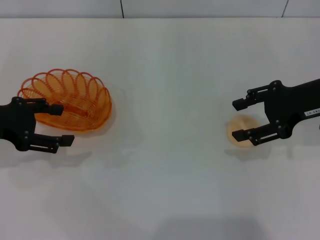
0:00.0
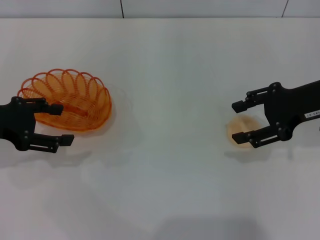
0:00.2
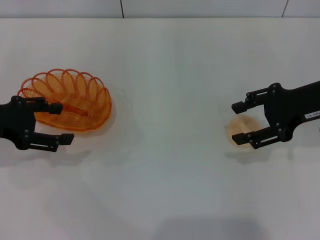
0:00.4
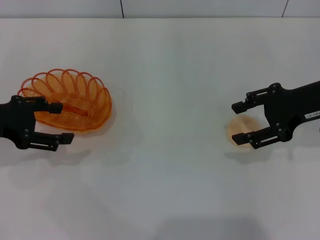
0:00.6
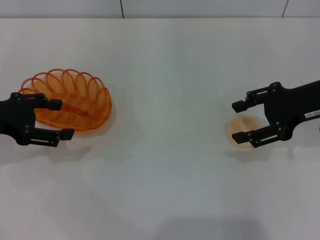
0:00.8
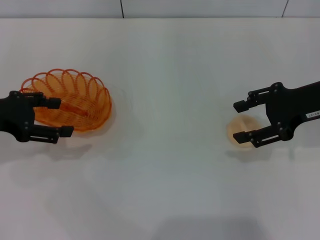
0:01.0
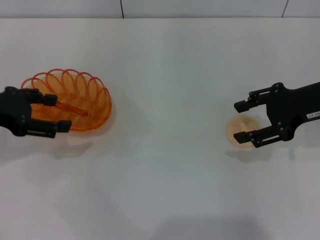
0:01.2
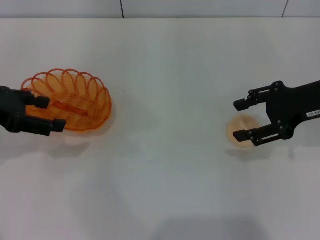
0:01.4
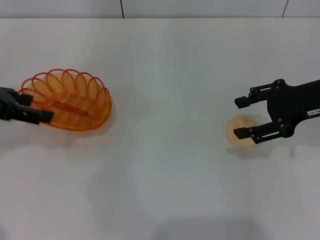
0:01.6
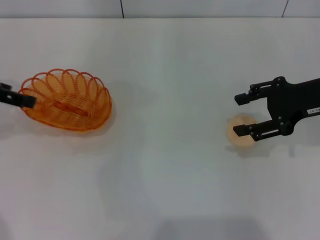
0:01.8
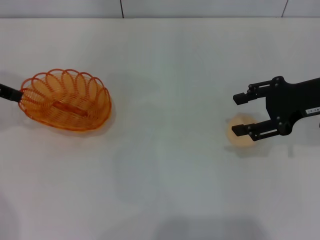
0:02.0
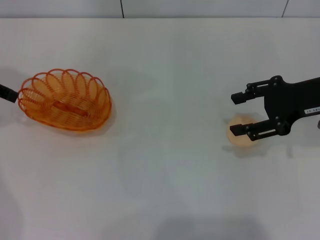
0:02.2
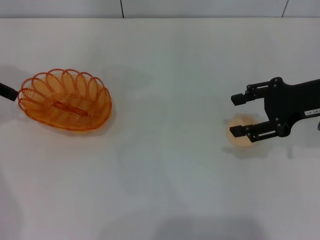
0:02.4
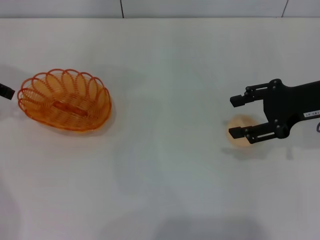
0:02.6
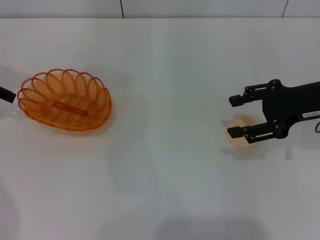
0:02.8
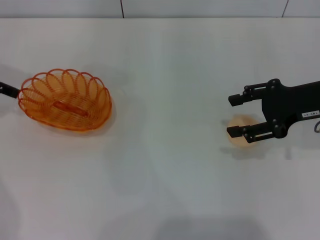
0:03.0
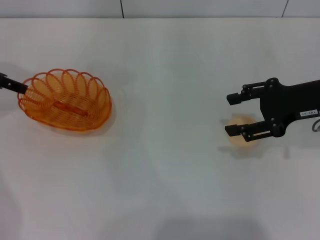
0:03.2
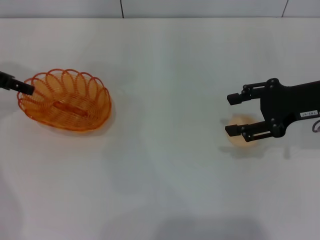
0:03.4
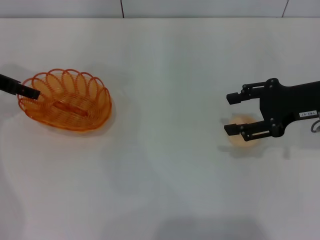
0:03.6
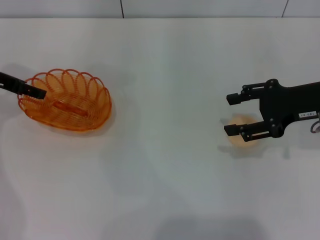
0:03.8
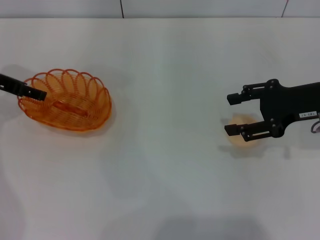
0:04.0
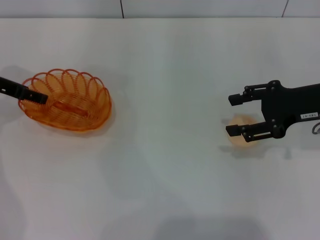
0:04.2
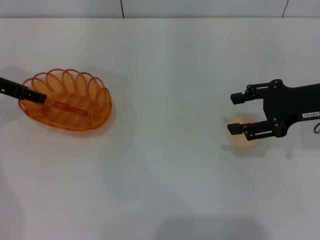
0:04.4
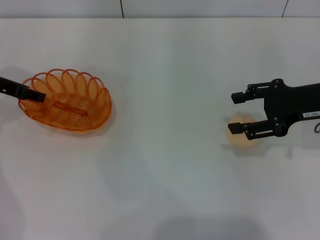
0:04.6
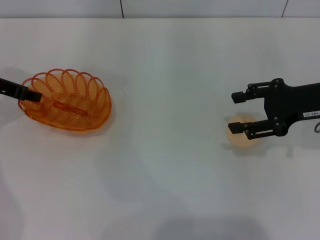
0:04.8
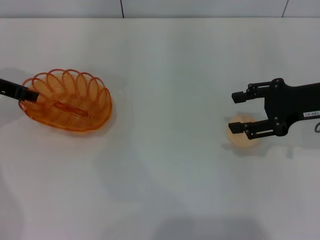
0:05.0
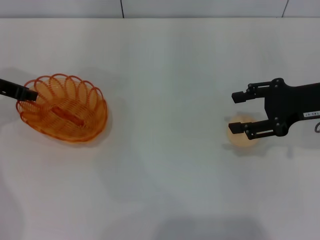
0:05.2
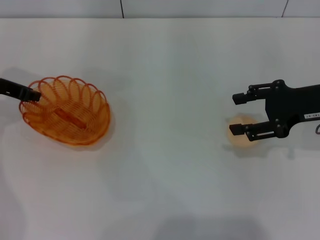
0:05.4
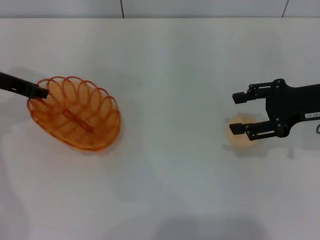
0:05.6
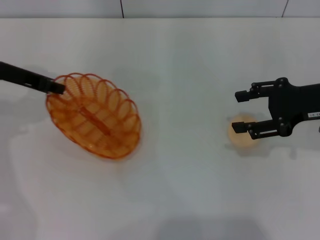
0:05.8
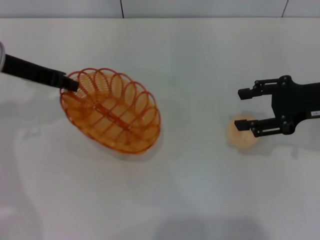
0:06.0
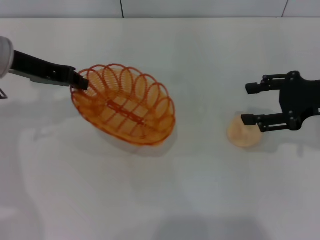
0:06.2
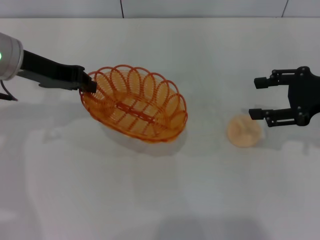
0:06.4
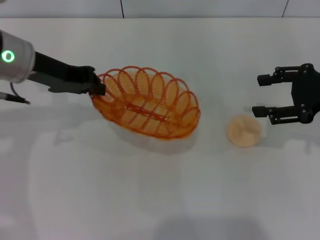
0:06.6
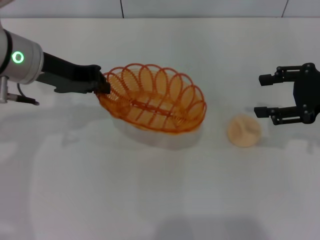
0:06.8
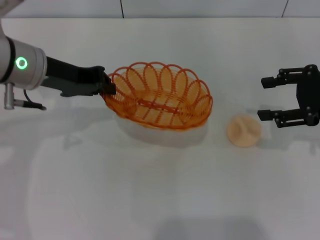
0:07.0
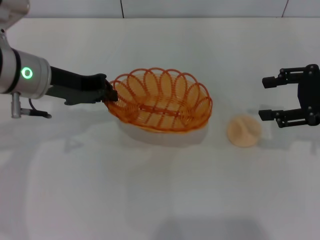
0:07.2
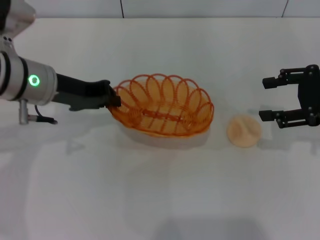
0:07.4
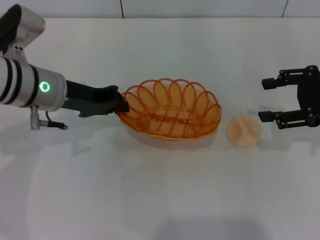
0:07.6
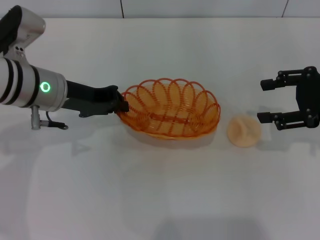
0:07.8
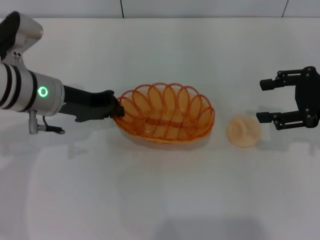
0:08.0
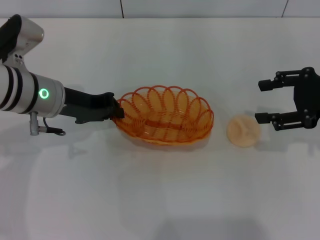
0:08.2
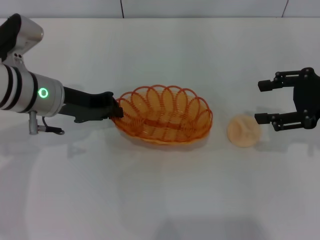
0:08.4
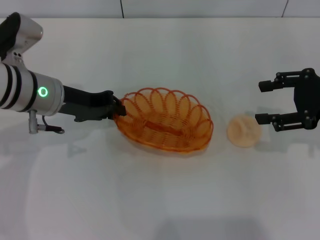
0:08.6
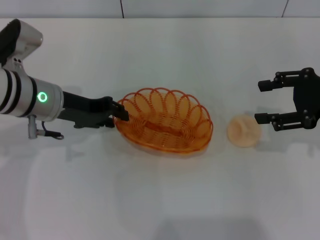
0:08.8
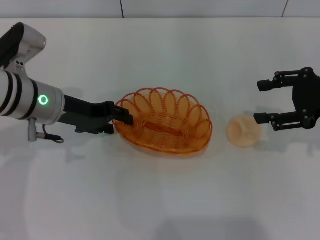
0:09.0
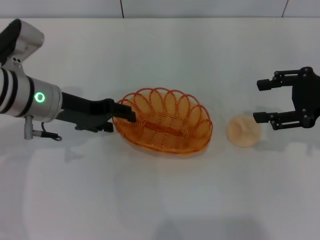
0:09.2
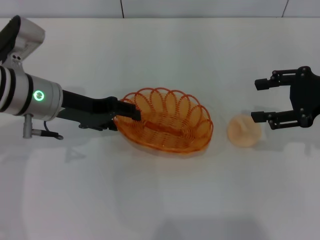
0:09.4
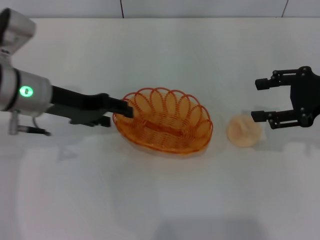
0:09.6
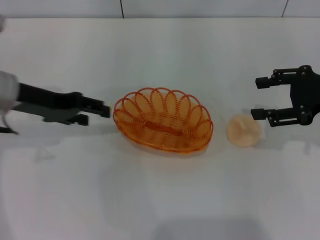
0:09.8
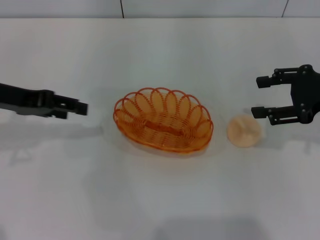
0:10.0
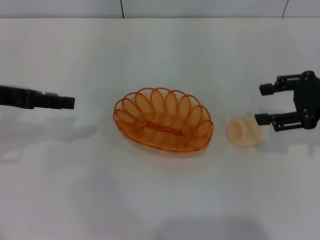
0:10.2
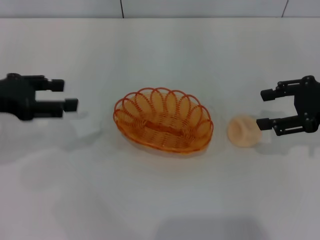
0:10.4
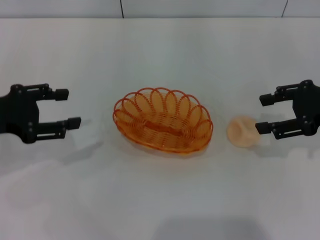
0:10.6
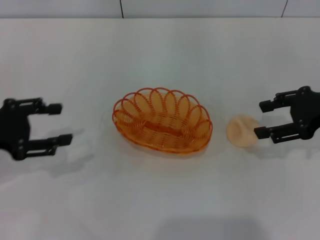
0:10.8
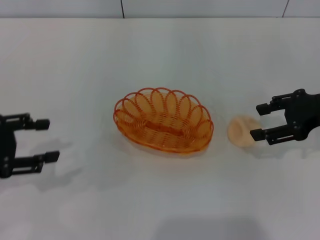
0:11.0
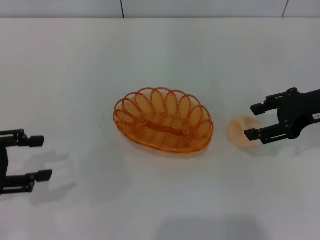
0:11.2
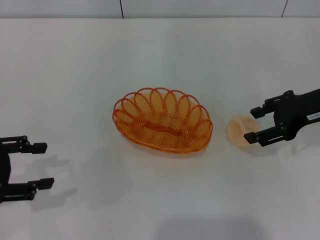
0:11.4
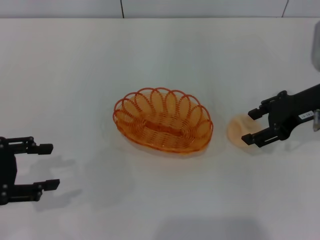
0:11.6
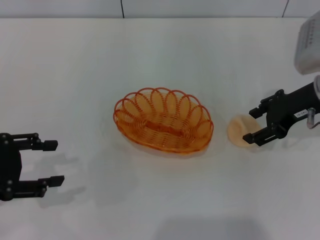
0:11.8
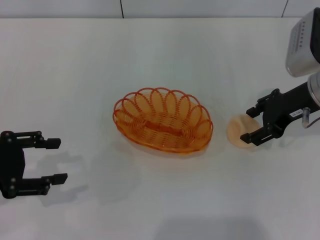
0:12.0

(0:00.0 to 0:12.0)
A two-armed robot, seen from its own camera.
Step, 0:00.0 - 0:06.4: Pick up the basket with the left gripper.
Step, 0:06.6 - 0:09.8: Place the basket in the center of view with the left gripper.
0:00.0 - 0:01.6: The left gripper is displaced upward by some 5 cm.
0:01.6 - 0:03.0: The left gripper moves forward, approximately 5 cm.
0:03.0 - 0:04.4: There are only small adjustments of the grippers.
0:04.4 - 0:06.0: The left gripper is displaced to the right by roughly 5 cm, and closes.
0:06.0 - 0:07.6: The left gripper travels to the right by some 5 cm.
0:07.6 - 0:09.0: The left gripper opens up.
0:09.0 - 0:10.4: The left gripper travels to the left and upward by some 10 cm.
0:10.4 - 0:12.0: The left gripper heads backward, covering some 5 cm; the right gripper heads to the left, covering some 5 cm.

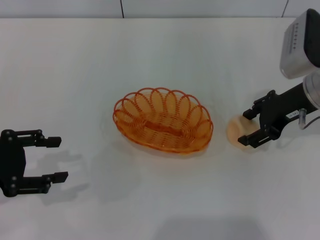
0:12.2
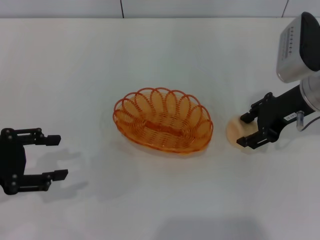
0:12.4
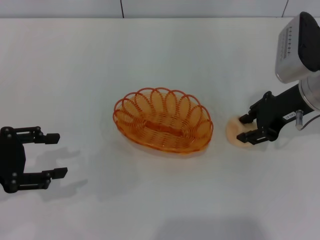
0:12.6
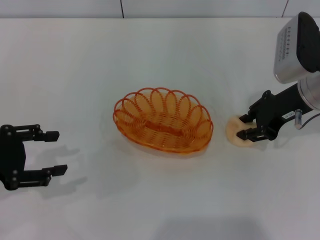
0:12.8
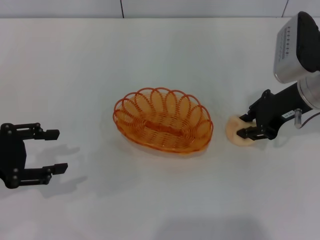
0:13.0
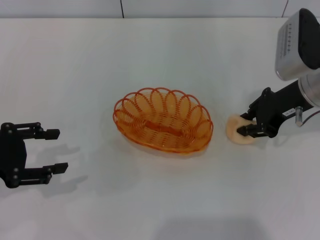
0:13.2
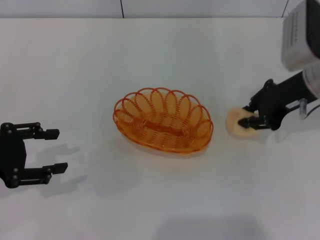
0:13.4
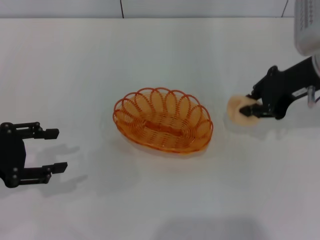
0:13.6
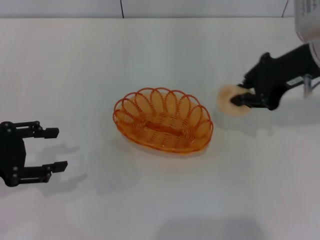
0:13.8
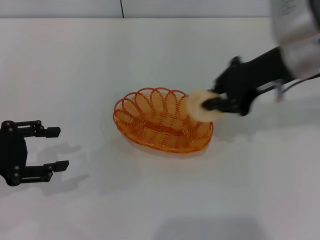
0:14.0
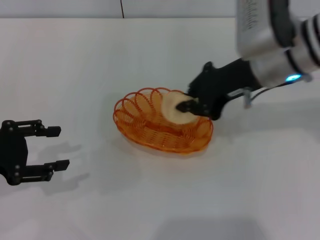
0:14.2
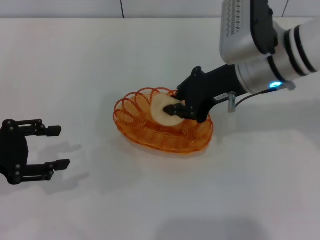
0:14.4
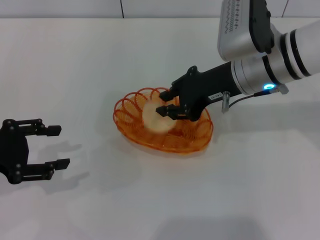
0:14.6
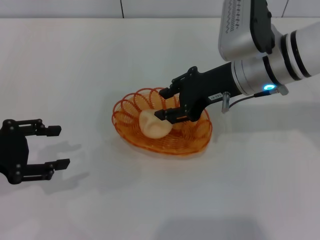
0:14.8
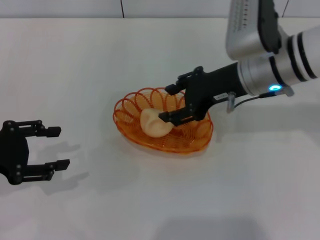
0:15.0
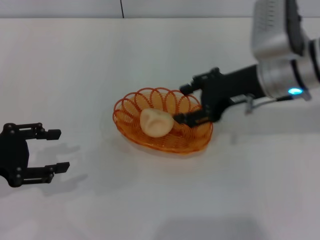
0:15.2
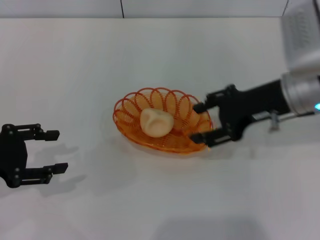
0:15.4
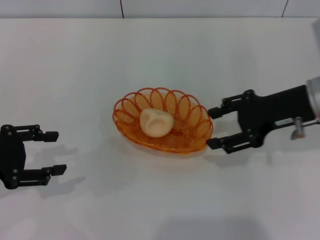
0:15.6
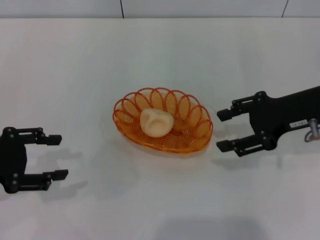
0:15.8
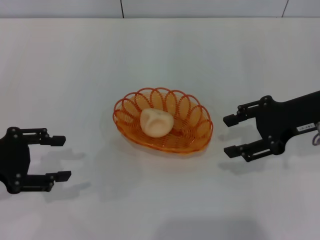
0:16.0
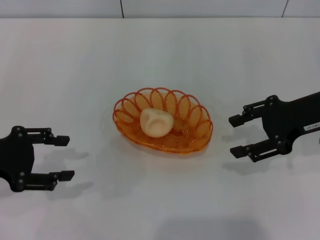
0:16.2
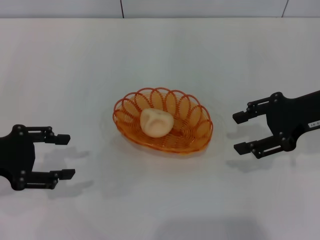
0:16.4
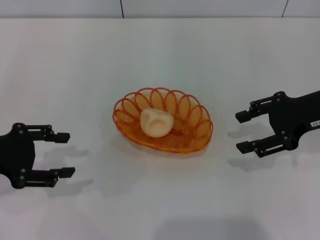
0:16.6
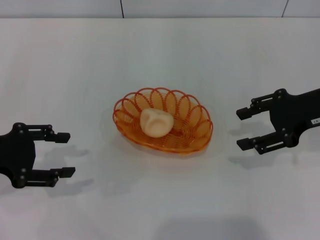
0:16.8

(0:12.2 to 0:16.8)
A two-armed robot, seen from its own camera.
Step, 0:13.8 - 0:15.6: Place the egg yolk pastry into the basket with the right gripper.
0:12.2 - 0:13.8: The right gripper heads upward, covering roughly 5 cm, and closes its fingers.
0:13.8 - 0:15.2: The right gripper heads downward, covering approximately 5 cm, and opens its fingers.
0:15.2 - 0:16.8: The right gripper travels to the right by some 10 cm.

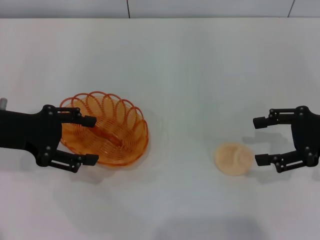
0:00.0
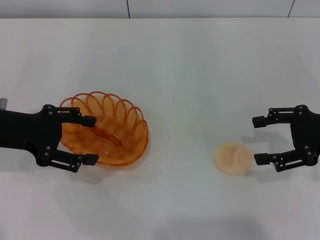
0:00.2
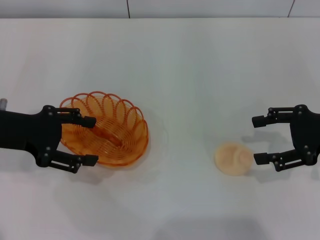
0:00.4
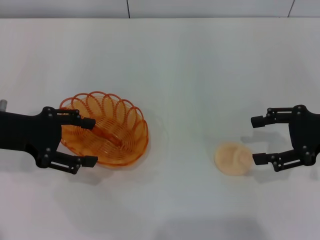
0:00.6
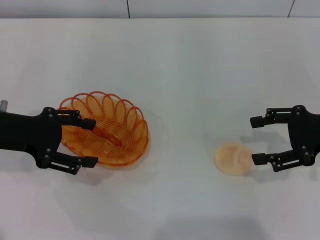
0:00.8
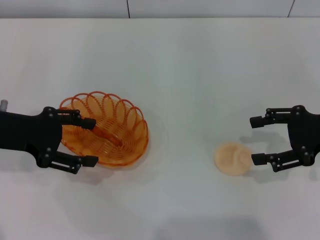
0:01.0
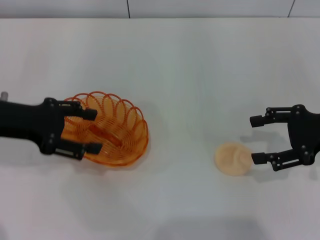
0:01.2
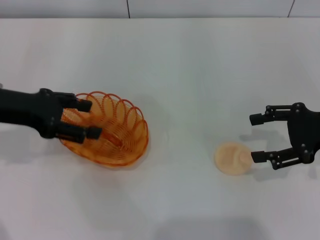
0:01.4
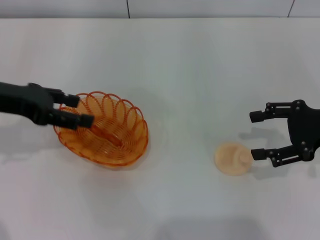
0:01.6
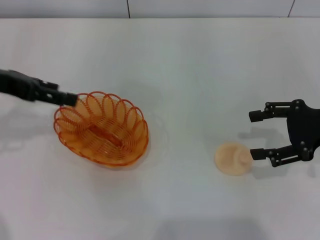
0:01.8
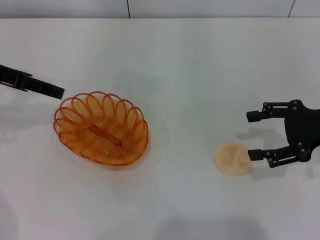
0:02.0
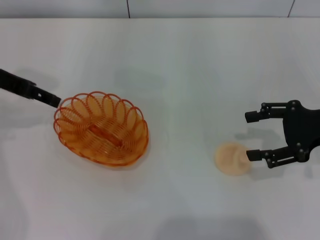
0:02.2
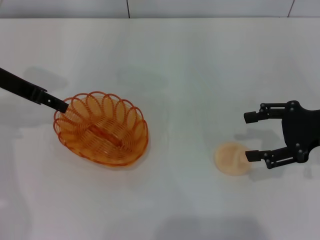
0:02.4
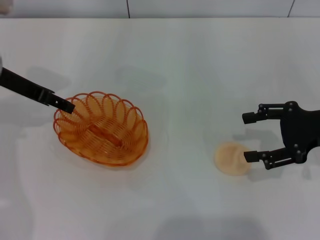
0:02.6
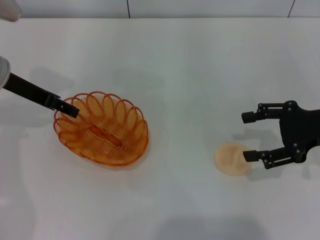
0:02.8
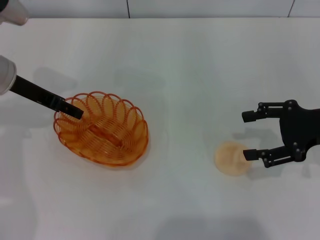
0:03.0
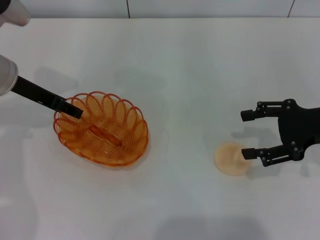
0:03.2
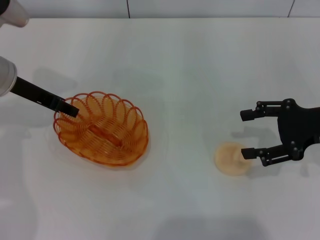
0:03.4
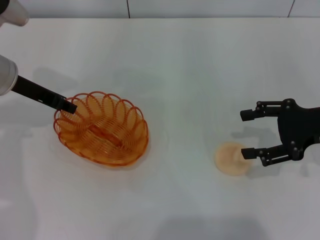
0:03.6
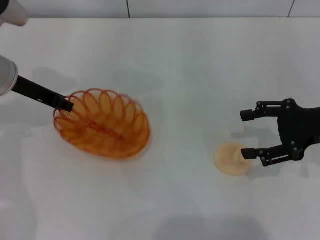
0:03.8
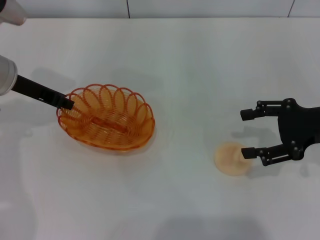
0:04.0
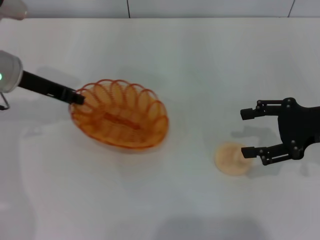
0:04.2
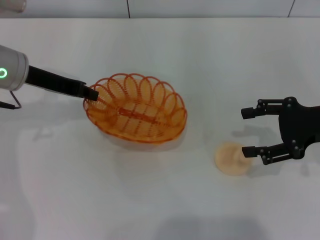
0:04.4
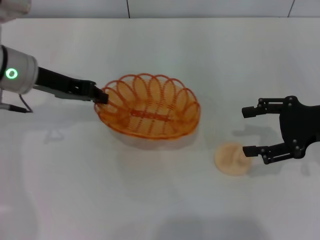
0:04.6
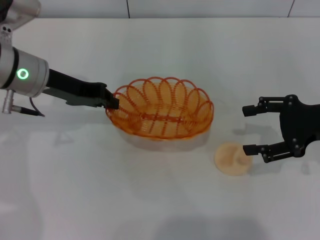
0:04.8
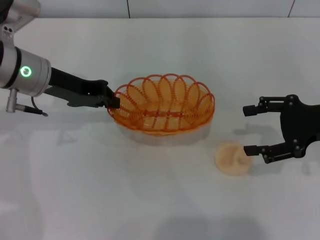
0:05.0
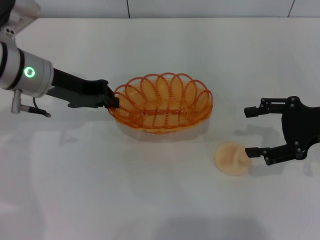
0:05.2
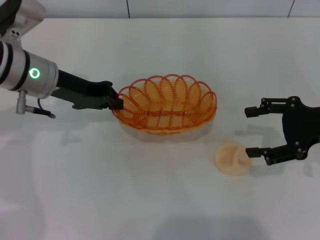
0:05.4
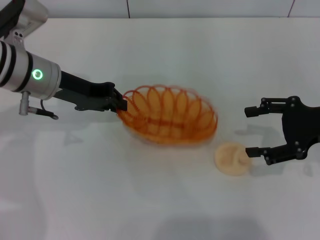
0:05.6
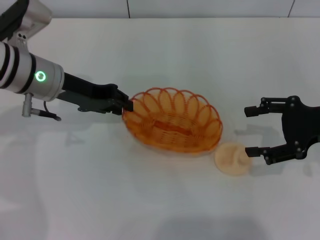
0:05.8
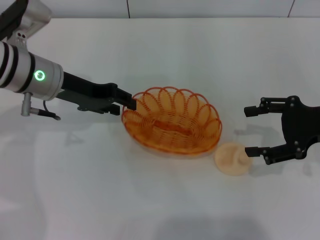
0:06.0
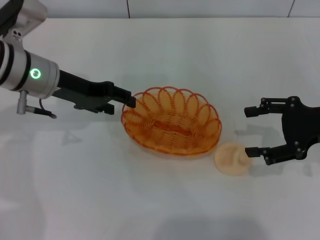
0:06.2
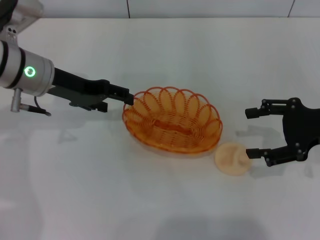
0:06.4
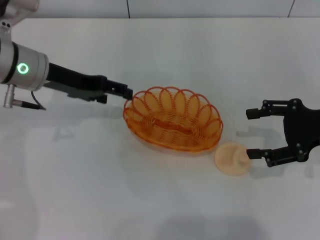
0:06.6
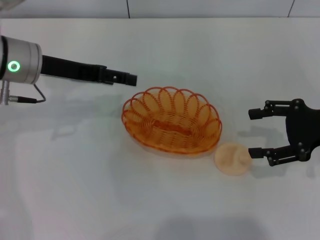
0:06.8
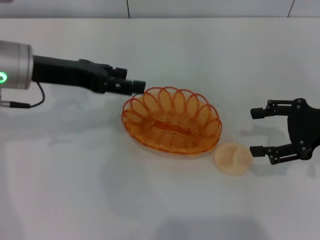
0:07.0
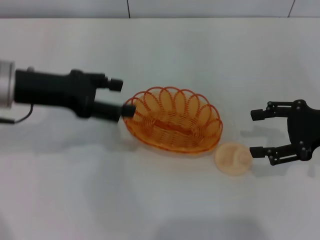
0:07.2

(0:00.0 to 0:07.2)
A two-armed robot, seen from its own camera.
Step, 0:00.0 - 0:04.4: Pick up the basket with the left gripper.
Step, 0:04.6 - 0:07.0: Place the basket in the center of view with the left gripper.
0:00.0 - 0:01.4: There are only small adjustments of the grippers.
0:01.4 - 0:02.8: The left gripper moves forward, some 5 cm.
0:02.8 - 0:04.4: The left gripper closes.
0:05.8 - 0:07.2: The left gripper shifts approximately 5 cm backward, and opens up.
